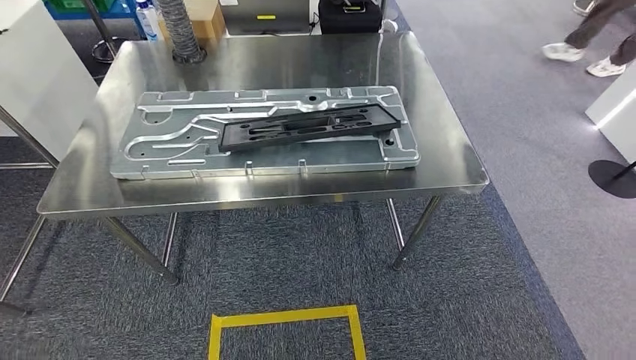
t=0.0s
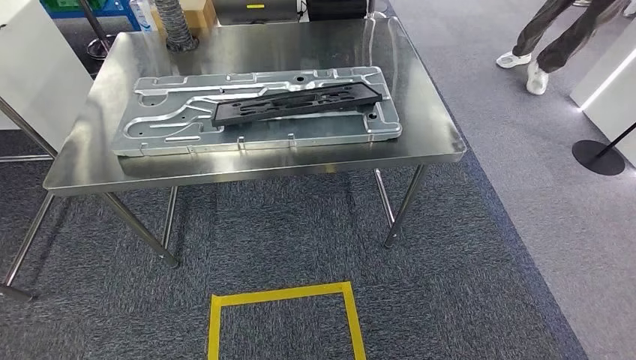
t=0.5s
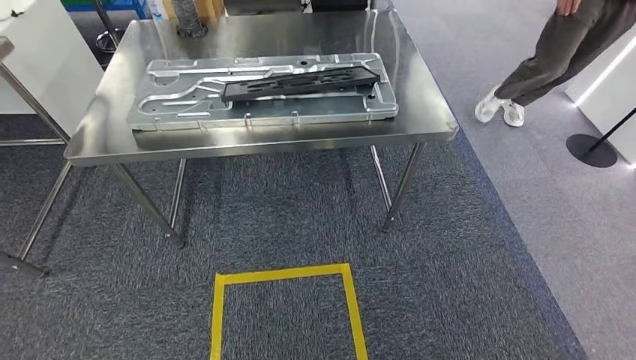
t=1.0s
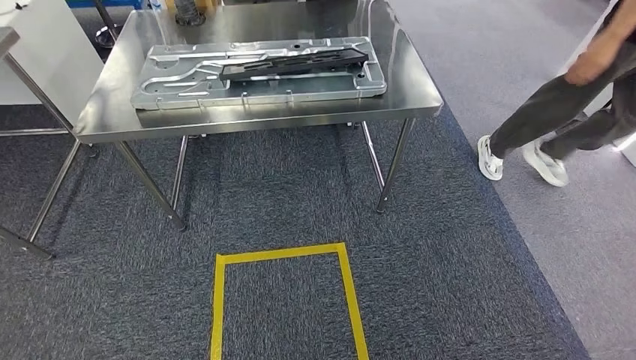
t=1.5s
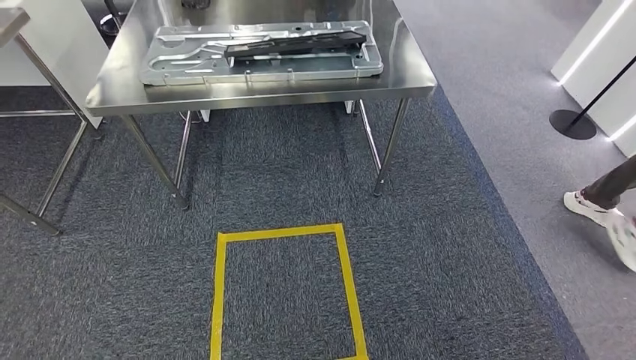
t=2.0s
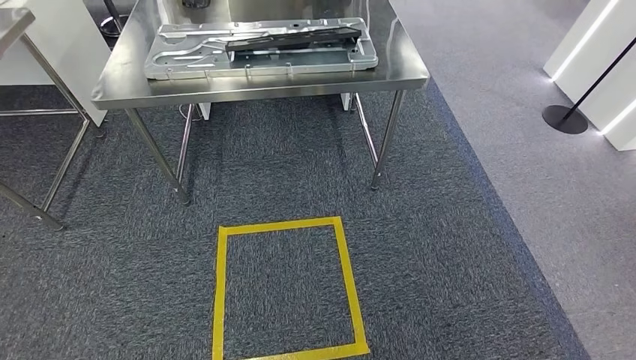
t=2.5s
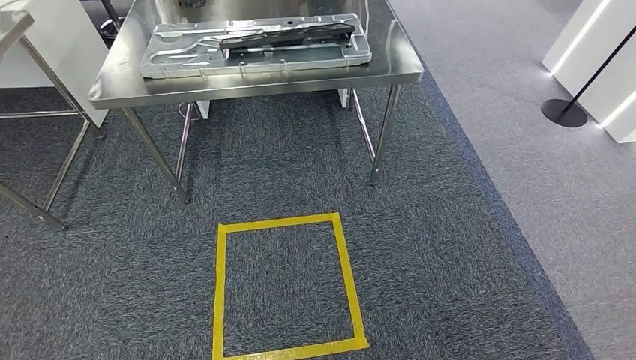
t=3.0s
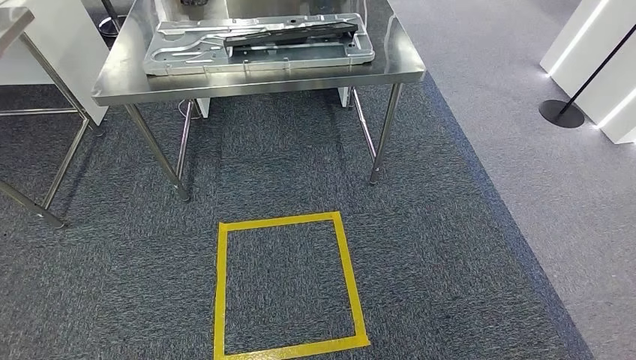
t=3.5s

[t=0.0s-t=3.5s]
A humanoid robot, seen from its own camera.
Step, t=0.0s to t=3.5s: Move to the initial position of the shelf.
t=2.0s to t=3.5s: The hands stay close to where they were, moving slightly.

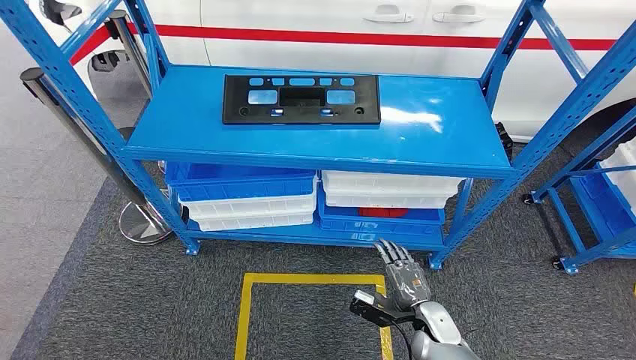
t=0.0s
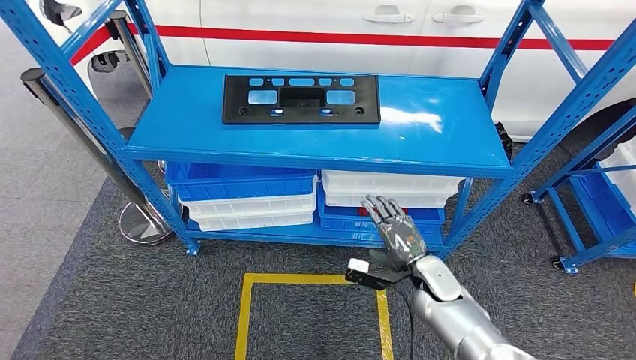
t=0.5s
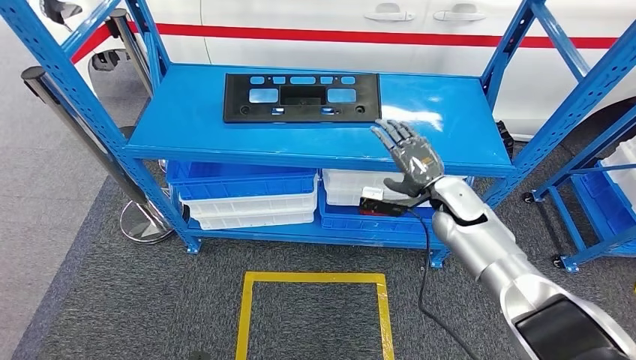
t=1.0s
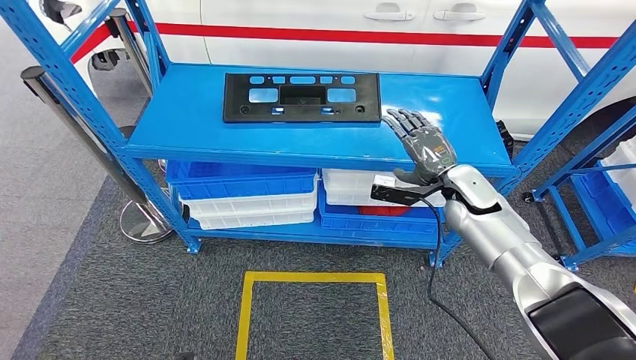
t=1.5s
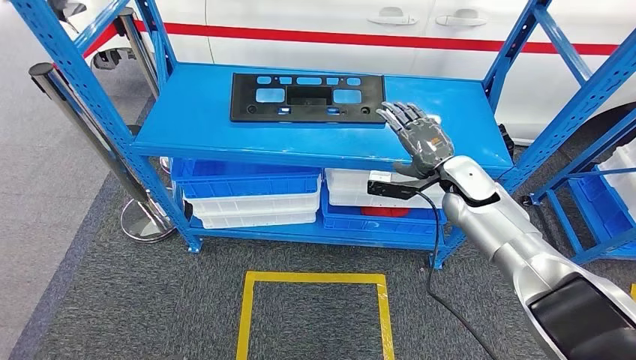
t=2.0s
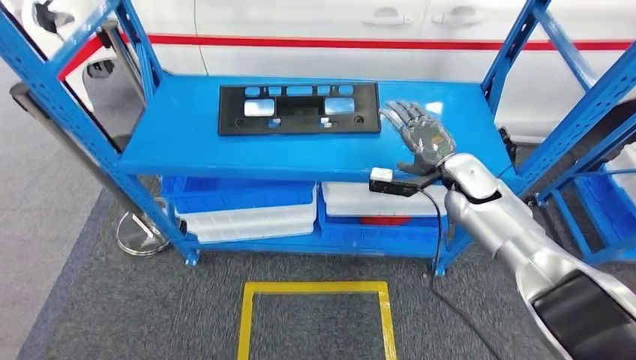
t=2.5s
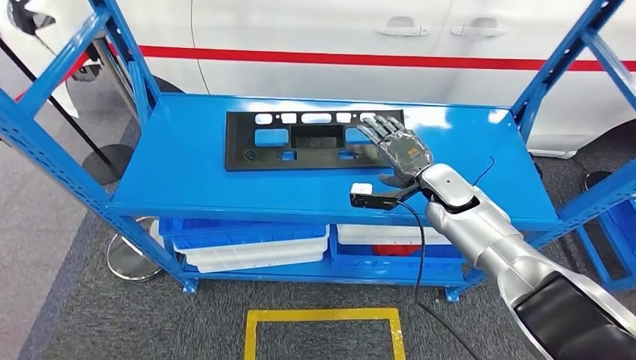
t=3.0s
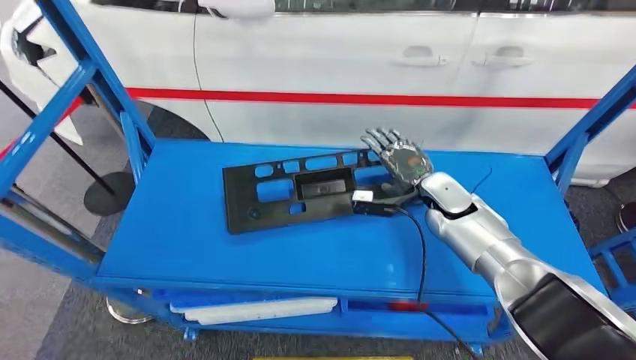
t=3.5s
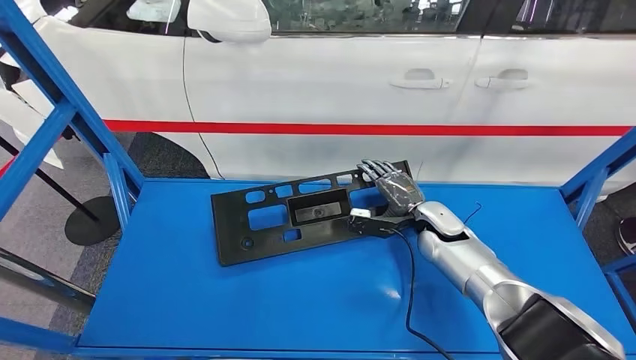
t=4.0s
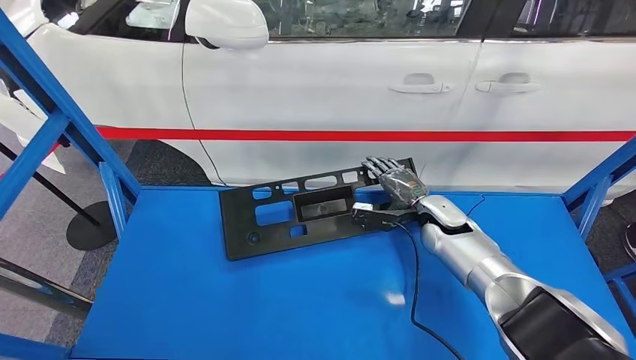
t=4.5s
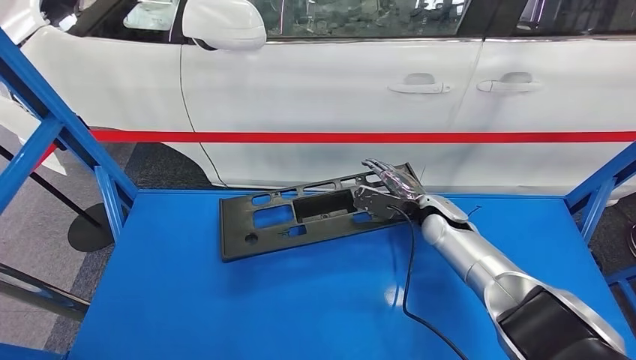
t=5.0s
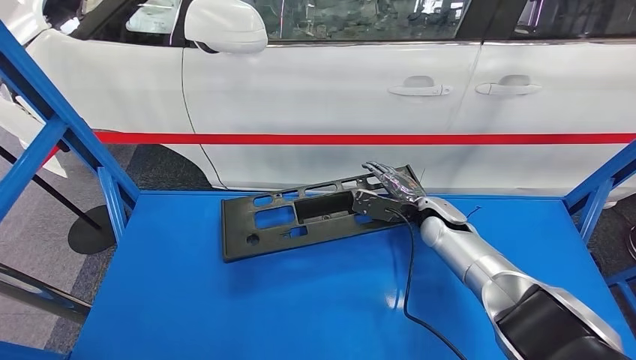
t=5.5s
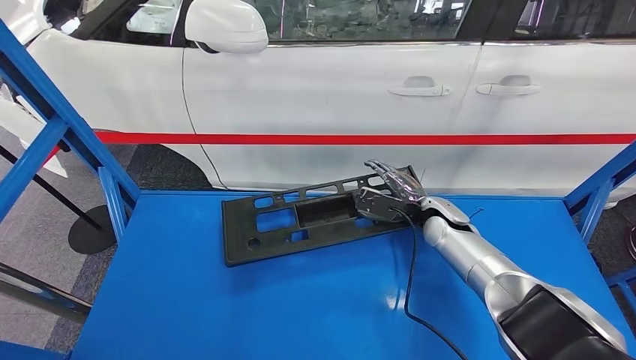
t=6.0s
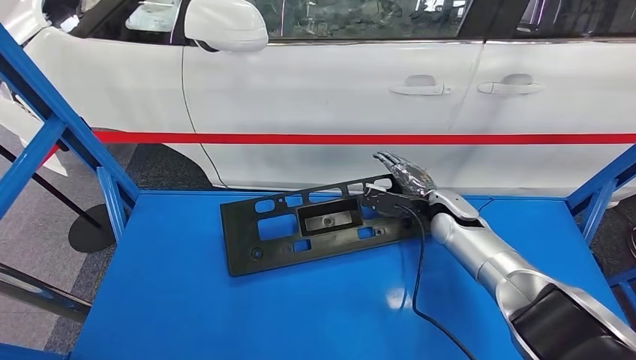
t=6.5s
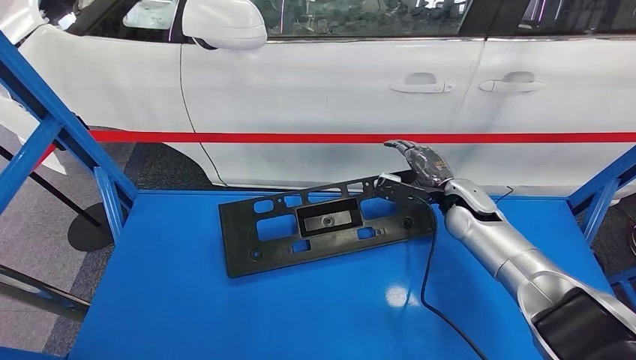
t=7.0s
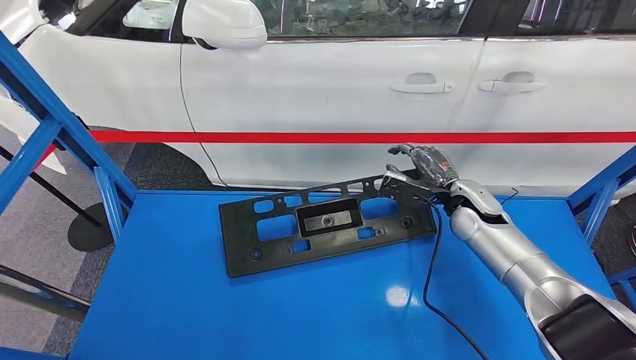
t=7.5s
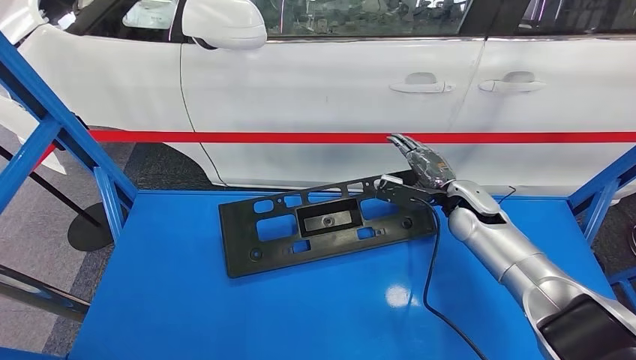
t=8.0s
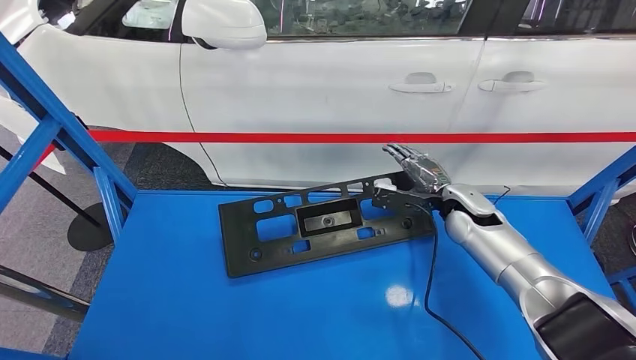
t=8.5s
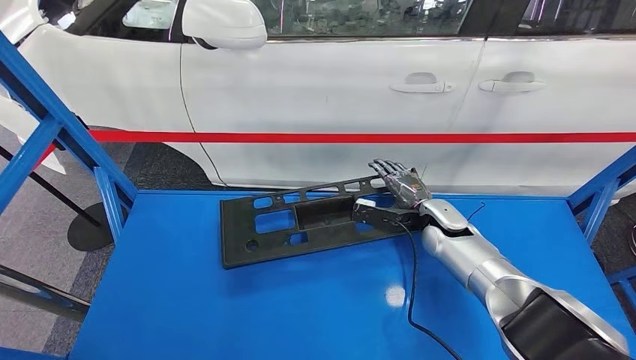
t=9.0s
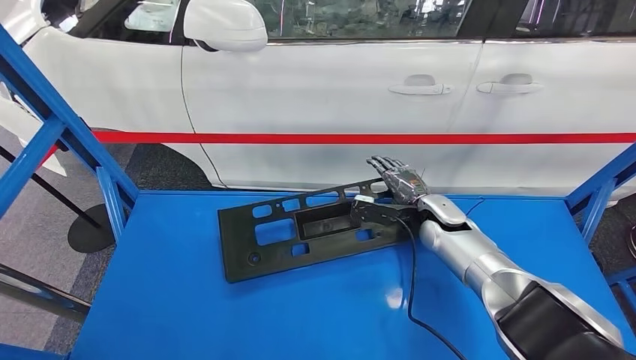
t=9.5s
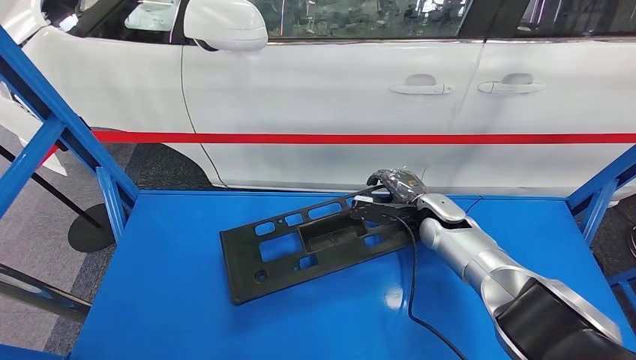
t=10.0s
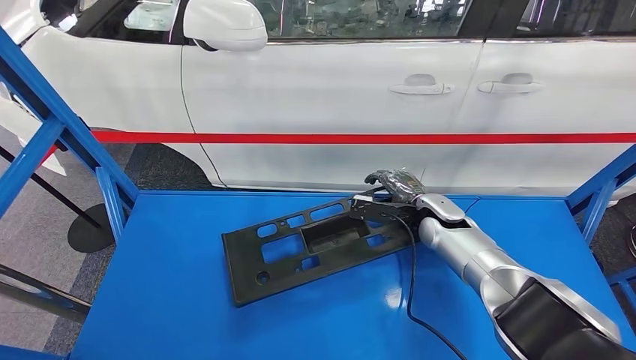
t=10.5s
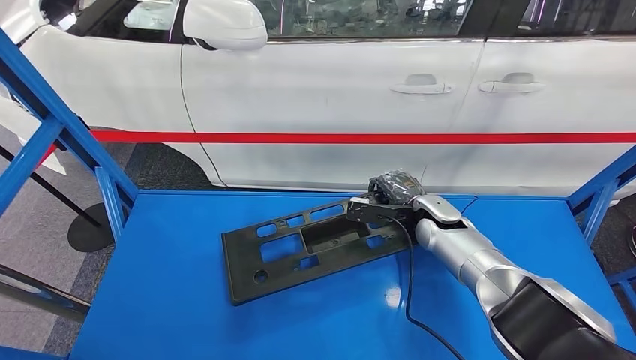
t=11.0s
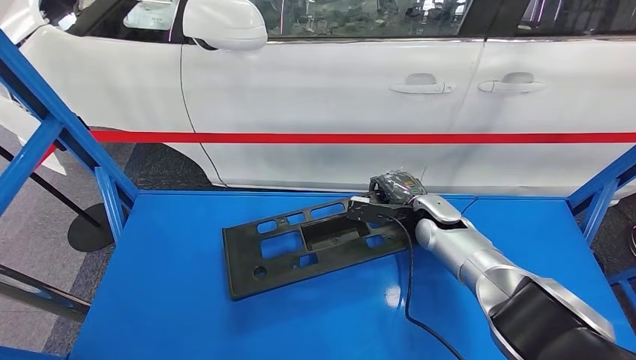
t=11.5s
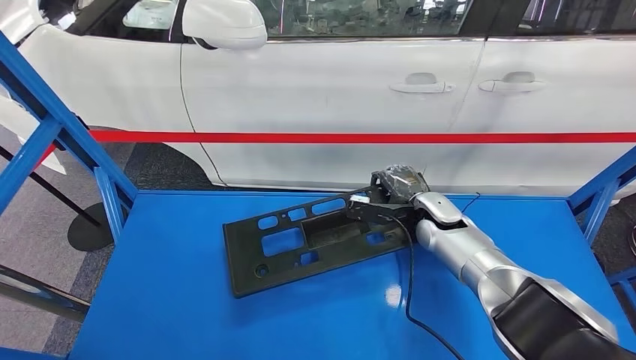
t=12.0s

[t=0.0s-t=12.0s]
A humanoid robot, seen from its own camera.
t=8.0s to t=10.0s: The right hand shifts by some 5 cm.
t=10.0s to t=12.0s: The hands make only small movements.

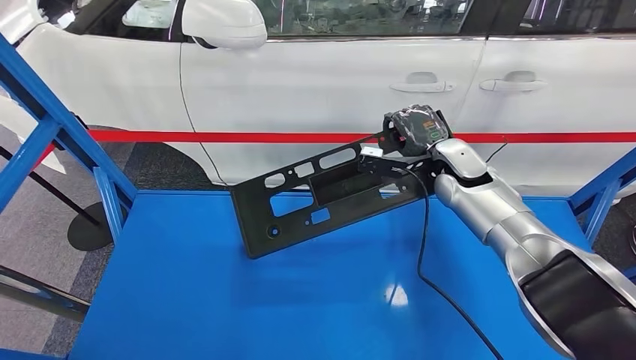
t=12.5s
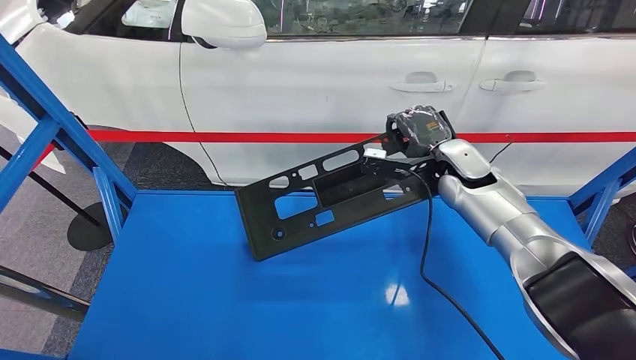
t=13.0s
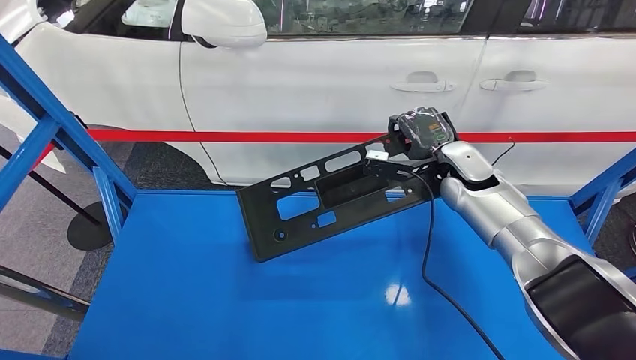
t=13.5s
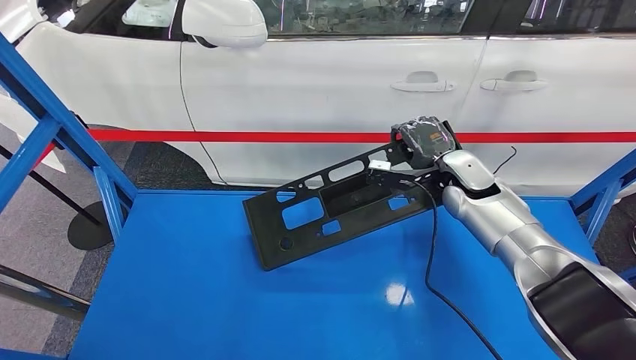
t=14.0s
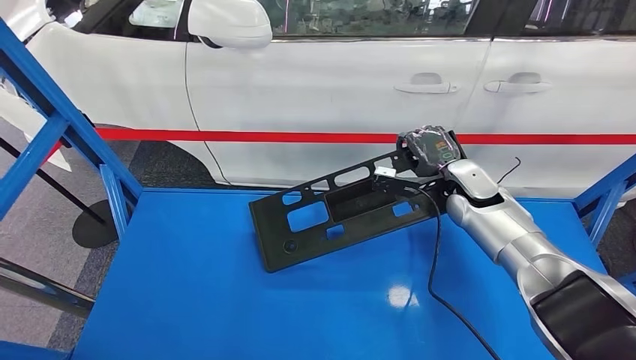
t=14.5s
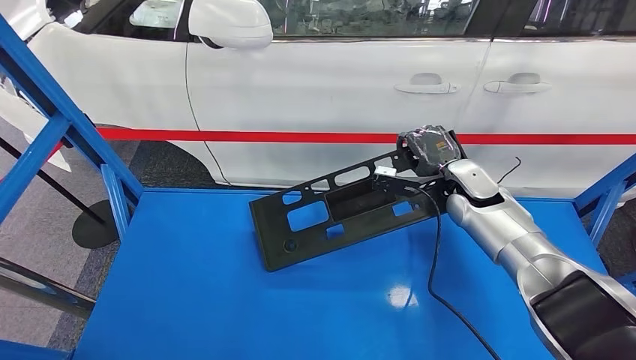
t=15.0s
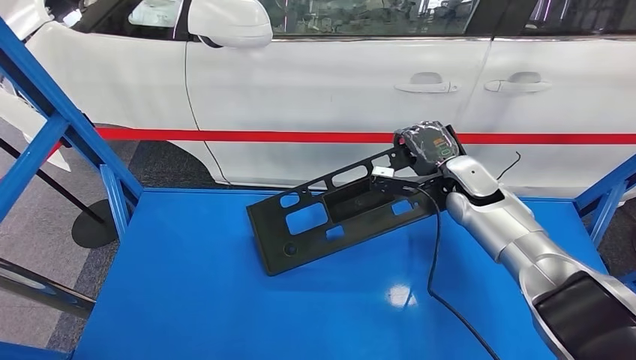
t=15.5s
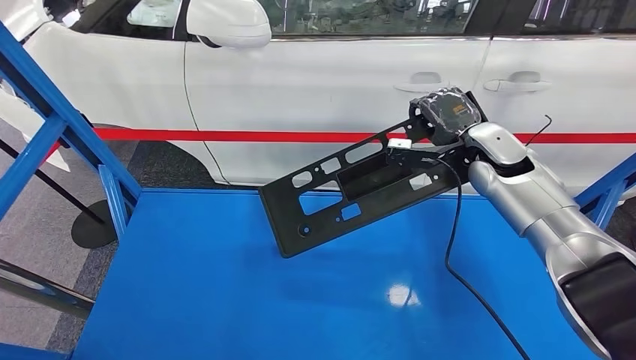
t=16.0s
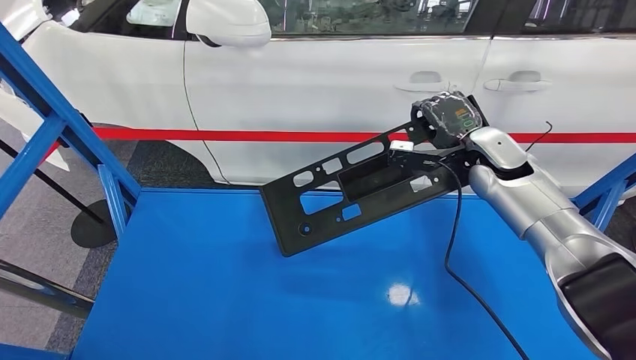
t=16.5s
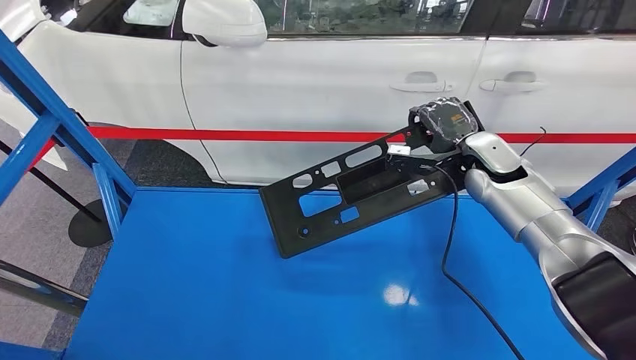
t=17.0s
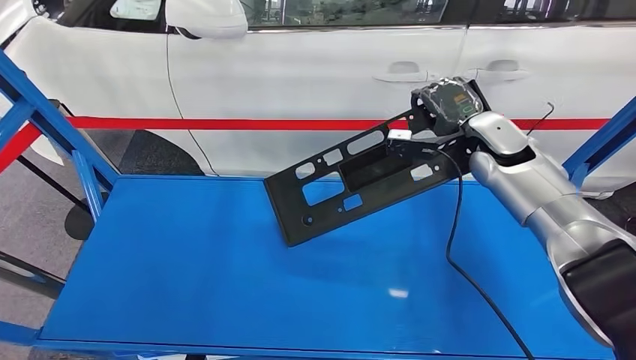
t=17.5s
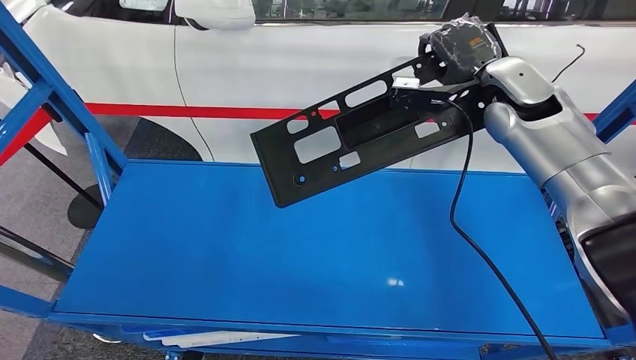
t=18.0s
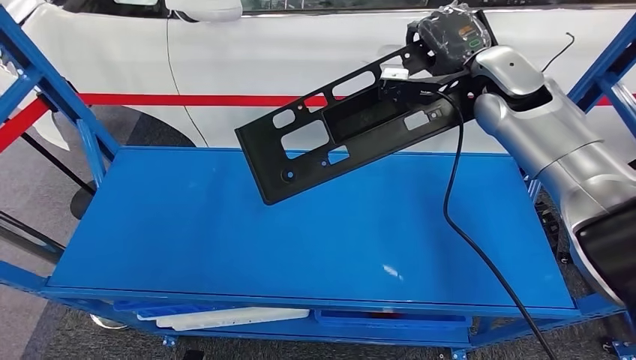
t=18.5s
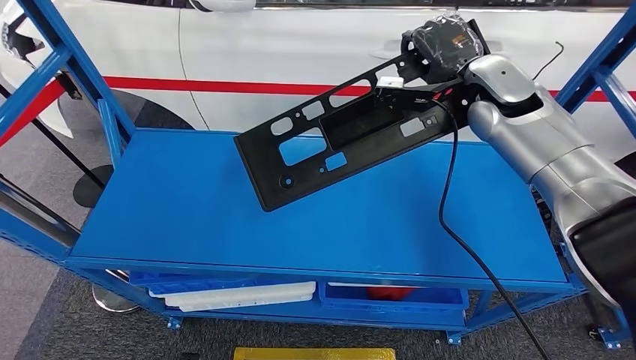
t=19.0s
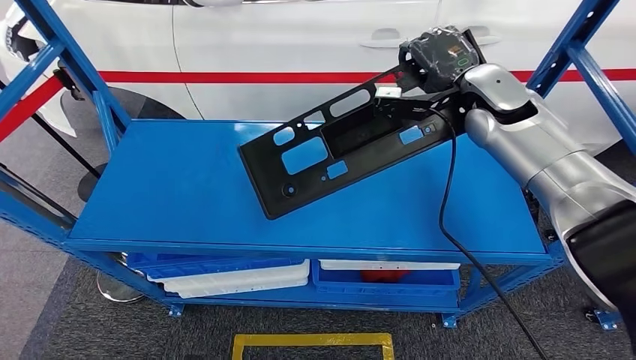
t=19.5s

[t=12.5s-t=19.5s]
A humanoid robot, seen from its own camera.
t=14.5s to t=16.0s: The right hand goes roughly 10 cm upward.
